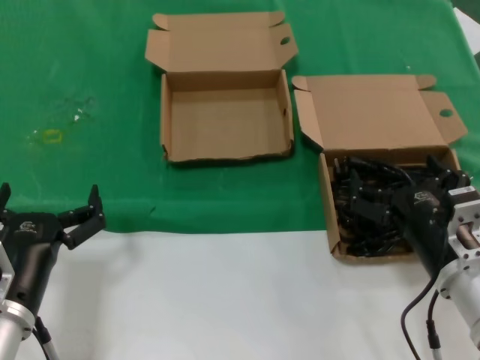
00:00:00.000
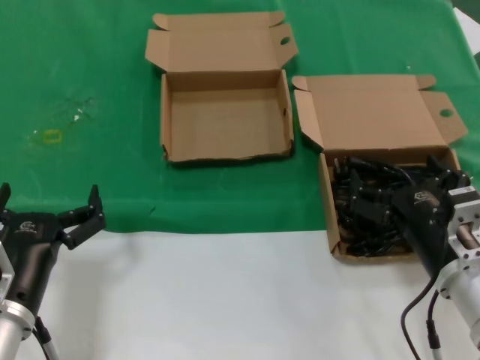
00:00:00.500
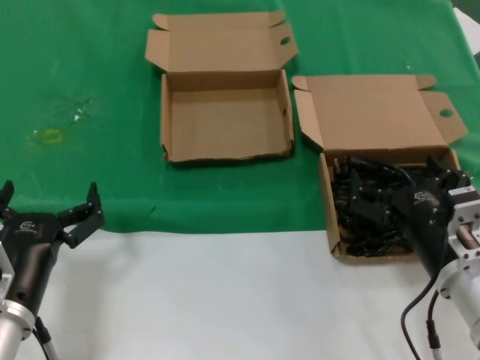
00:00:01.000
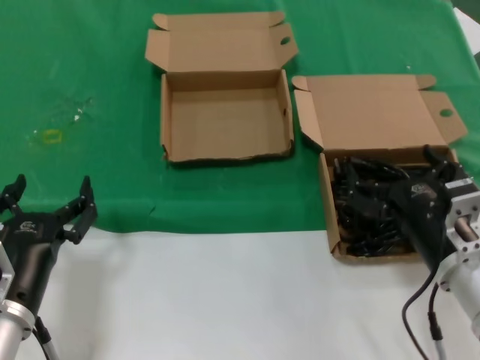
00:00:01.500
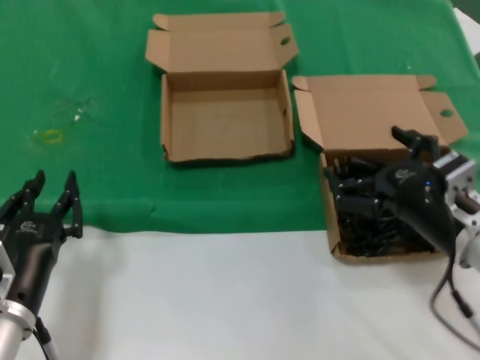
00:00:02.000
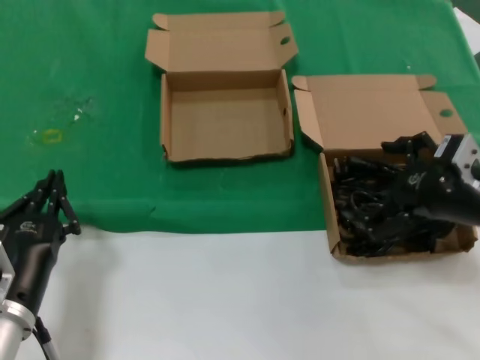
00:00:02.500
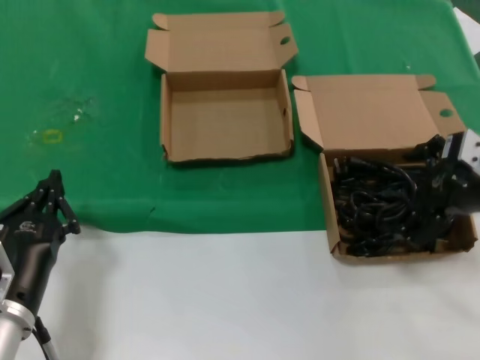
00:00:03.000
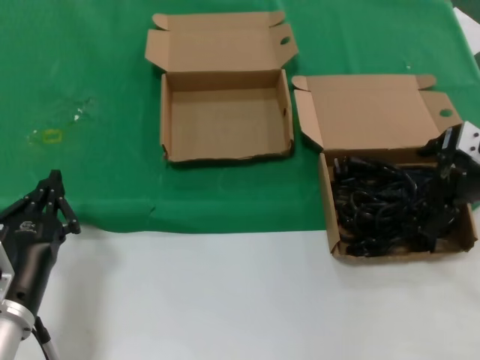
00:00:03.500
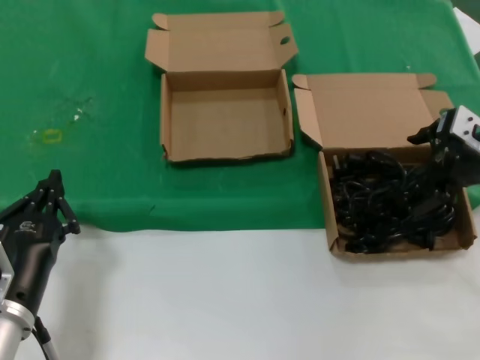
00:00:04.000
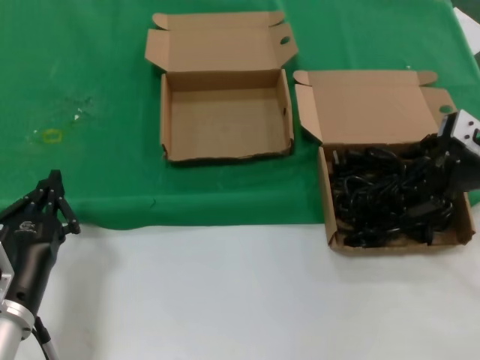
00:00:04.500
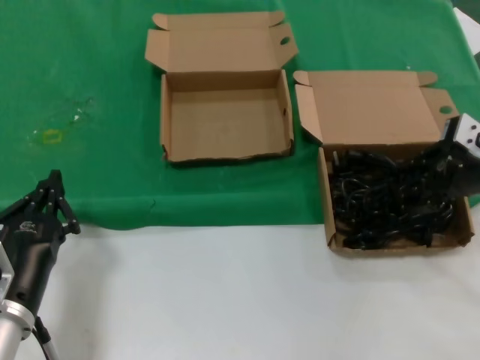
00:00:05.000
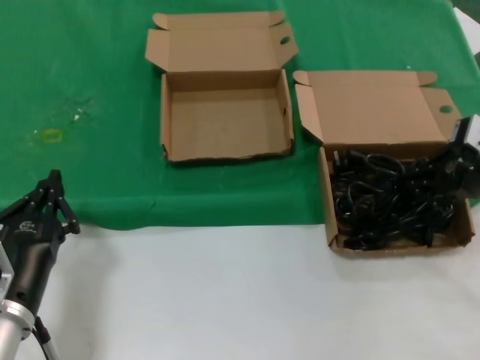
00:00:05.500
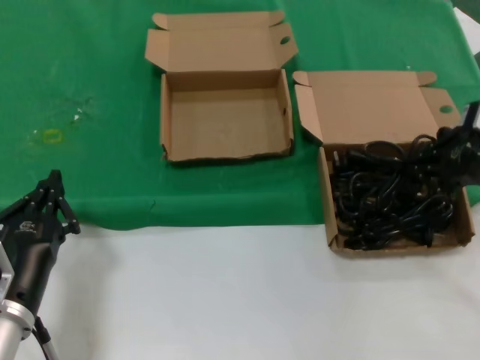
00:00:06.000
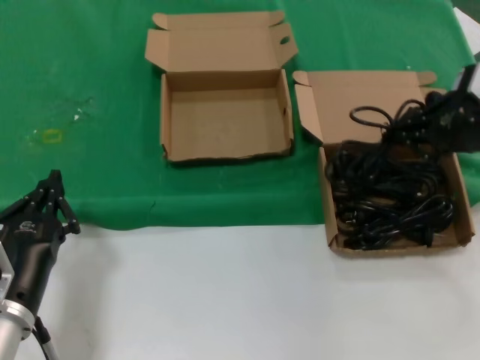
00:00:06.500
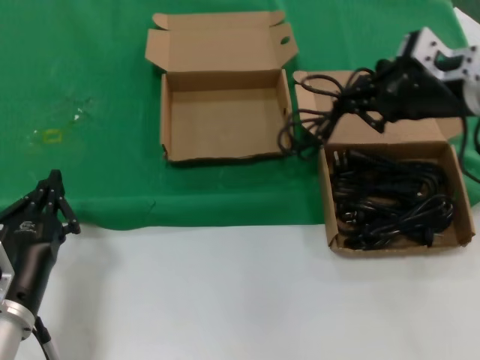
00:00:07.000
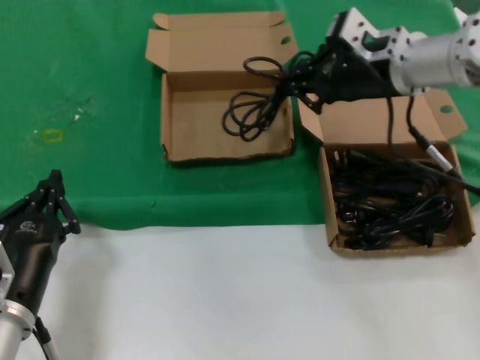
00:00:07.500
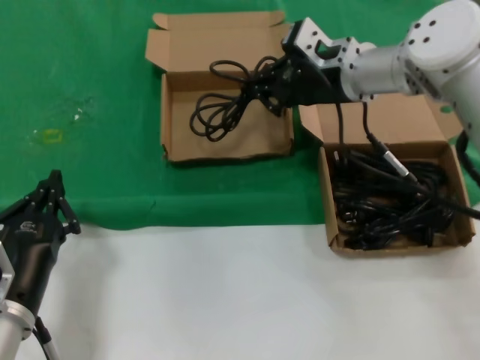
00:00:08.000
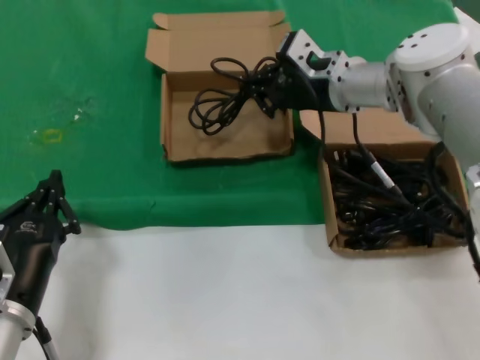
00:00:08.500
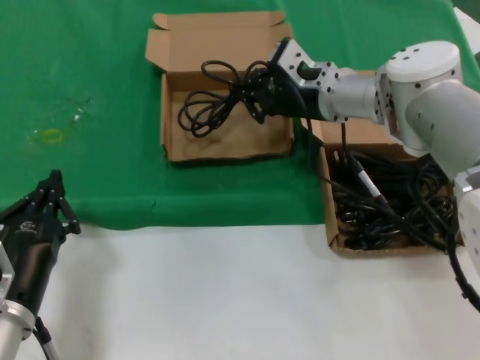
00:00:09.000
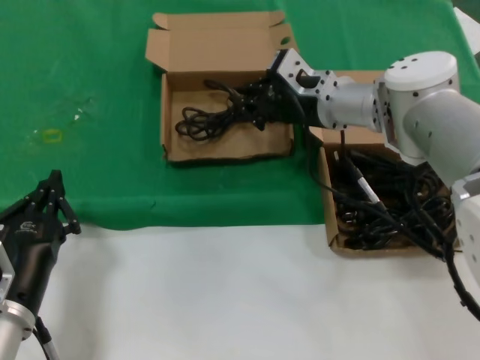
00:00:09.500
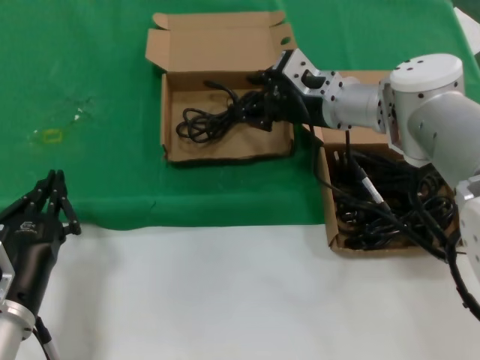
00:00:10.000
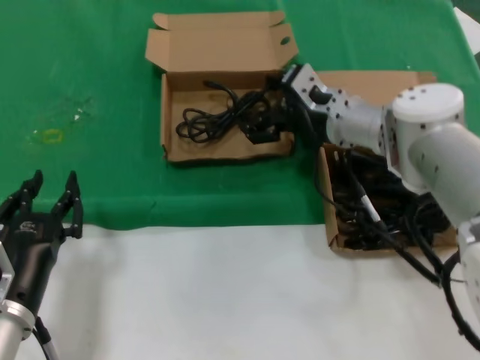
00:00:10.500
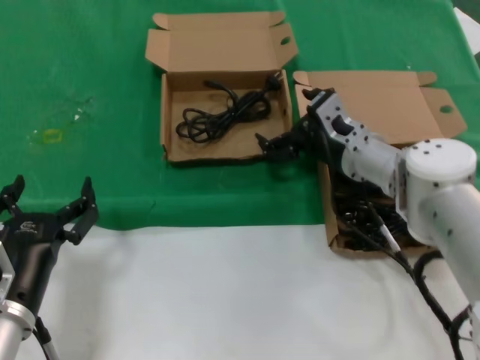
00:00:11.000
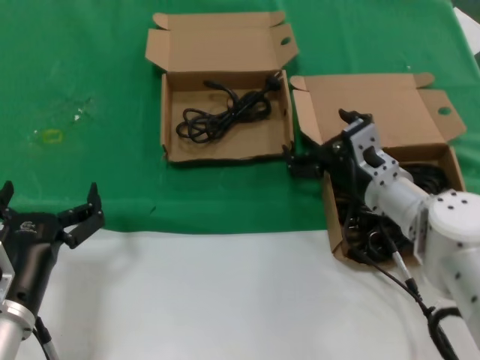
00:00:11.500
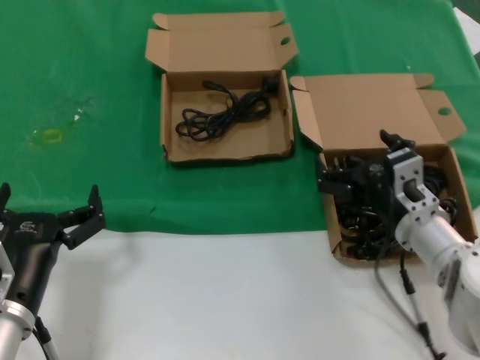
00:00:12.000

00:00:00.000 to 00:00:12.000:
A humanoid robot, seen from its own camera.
Task of the whole recording: take the parts from the box containing them and put them into an empty box.
Step, 00:00:00.000 to 00:00:05.000: Grasp the data cable.
Step, 00:00:05.500 to 00:00:09.000: Place the data cable in the another box.
00:00:00.000 to 00:00:02.000: The right hand shifts by roughly 5 cm.
00:00:02.000 to 00:00:04.000: The right hand is displaced forward, upward and to the right by roughly 20 cm.
00:00:04.000 to 00:00:06.000: The hands stay close to where they were, moving slightly.
00:00:06.000 to 00:00:08.000: The right hand shifts about 25 cm to the left and forward.
00:00:08.000 to 00:00:10.000: The right hand is displaced downward by about 5 cm.
00:00:10.000 to 00:00:12.000: The right hand is displaced backward, downward and to the right by roughly 20 cm.

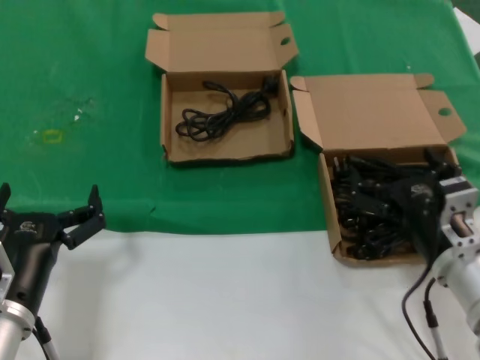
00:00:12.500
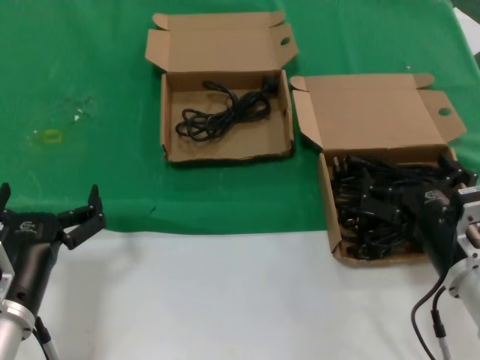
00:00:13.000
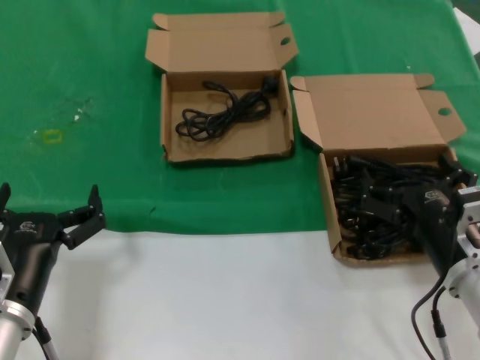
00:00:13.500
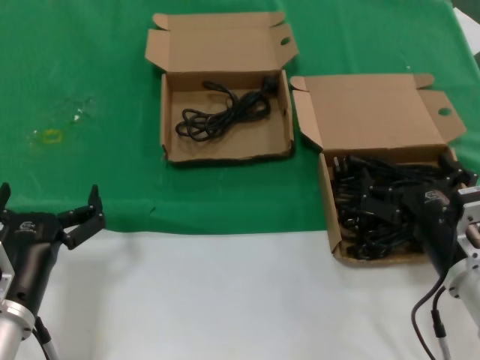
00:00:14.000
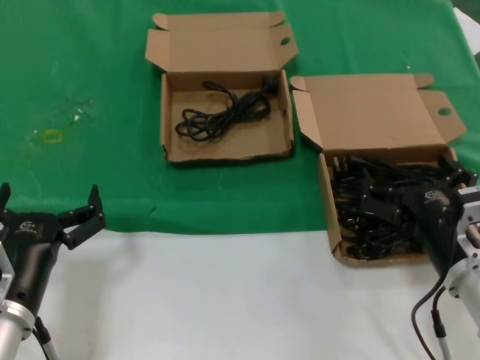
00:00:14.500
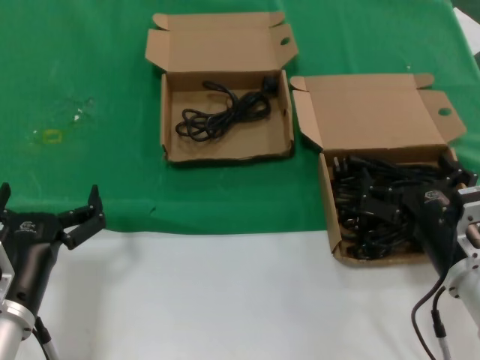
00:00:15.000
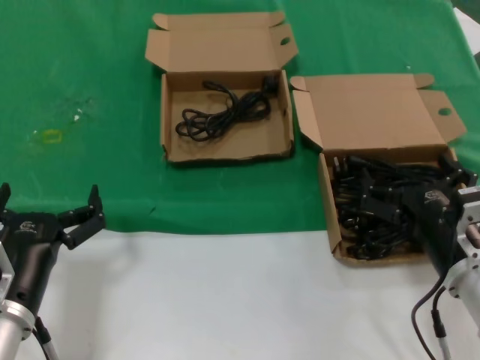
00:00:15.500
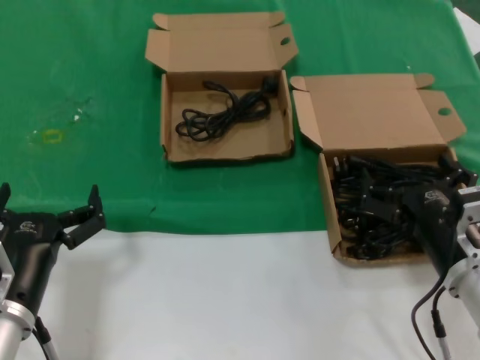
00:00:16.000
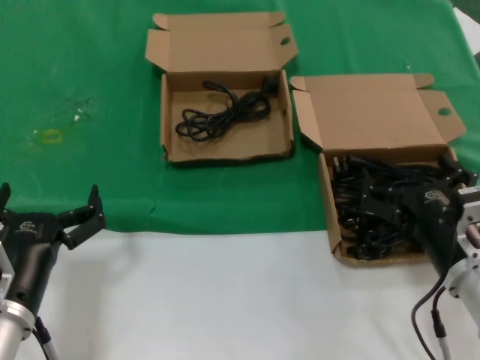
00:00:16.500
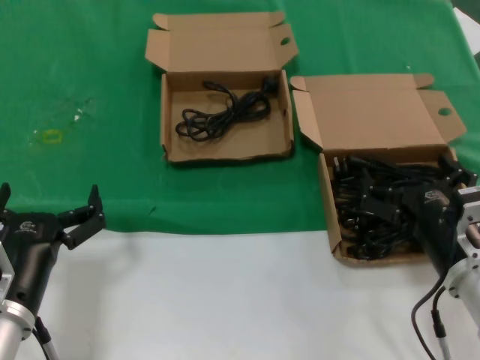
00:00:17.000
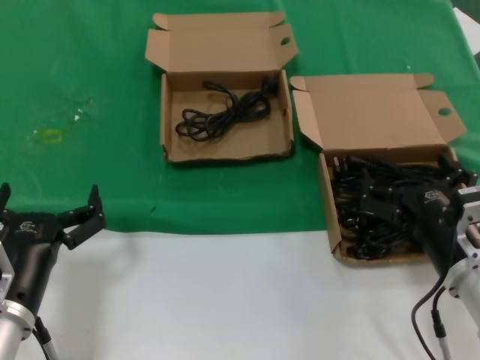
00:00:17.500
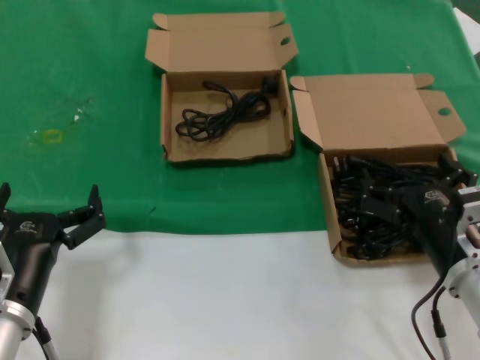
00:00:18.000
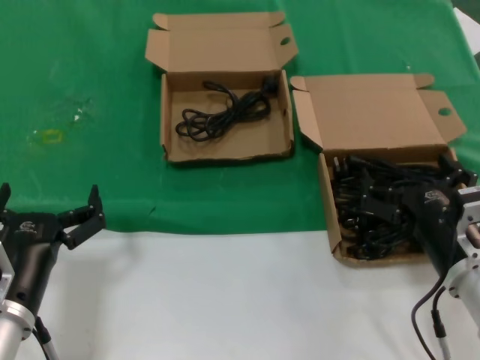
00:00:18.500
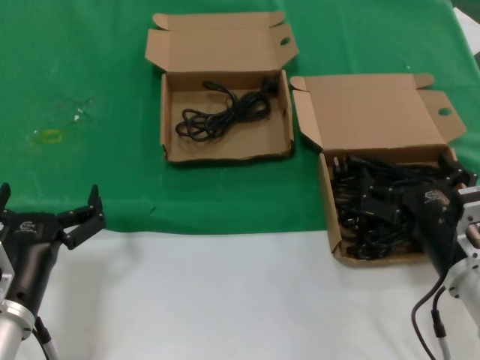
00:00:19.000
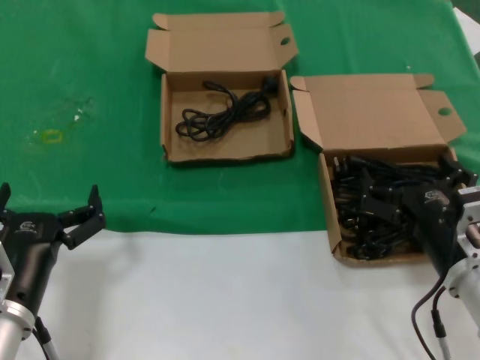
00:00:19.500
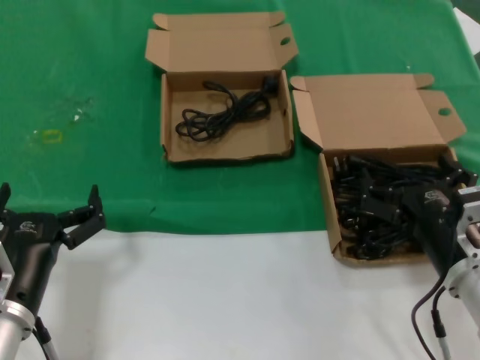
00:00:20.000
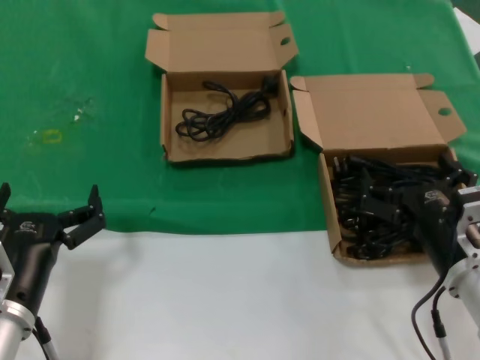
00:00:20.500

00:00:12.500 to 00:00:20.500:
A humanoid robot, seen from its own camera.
Task of the whole recording: take the parts from the box containing them and put them into an empty box.
00:00:12.500 to 00:00:14.500: There are only small adjustments of the hands.
00:00:14.500 to 00:00:20.500: Both hands stay about where they are.
